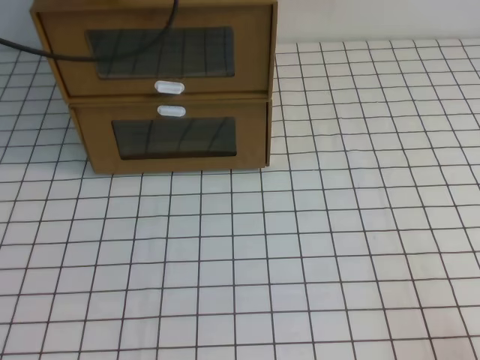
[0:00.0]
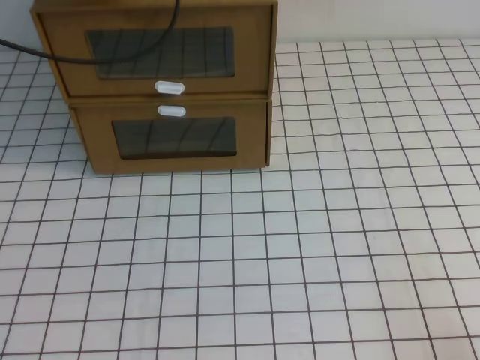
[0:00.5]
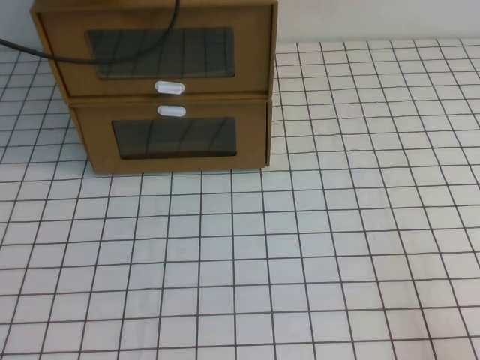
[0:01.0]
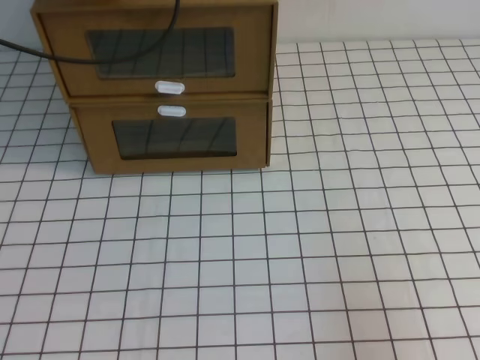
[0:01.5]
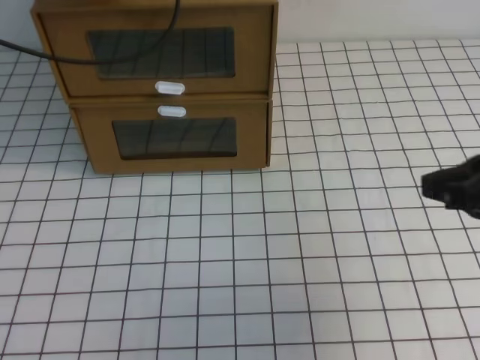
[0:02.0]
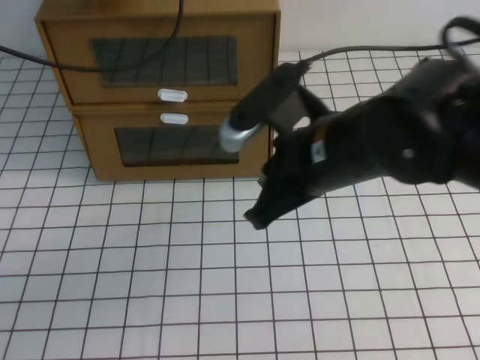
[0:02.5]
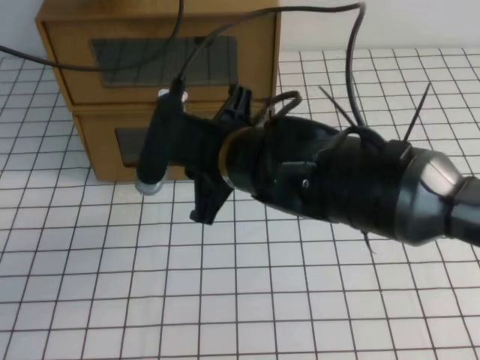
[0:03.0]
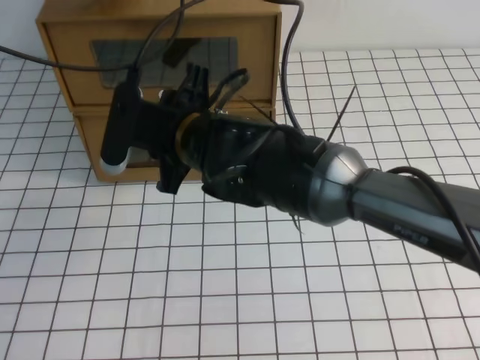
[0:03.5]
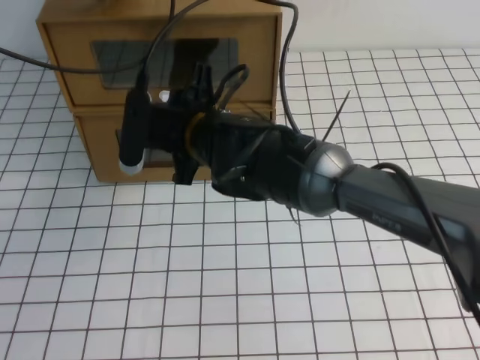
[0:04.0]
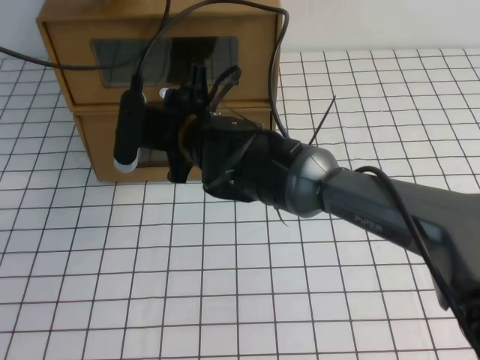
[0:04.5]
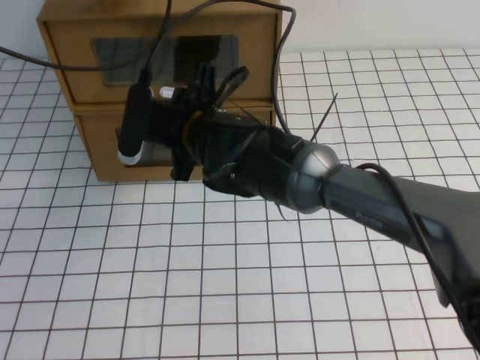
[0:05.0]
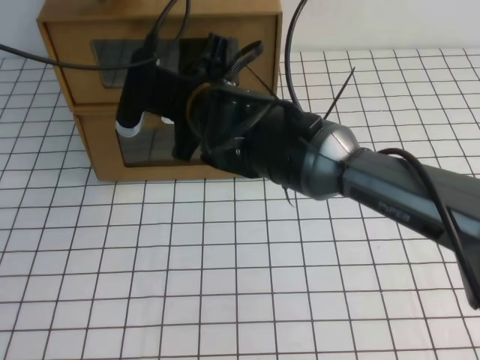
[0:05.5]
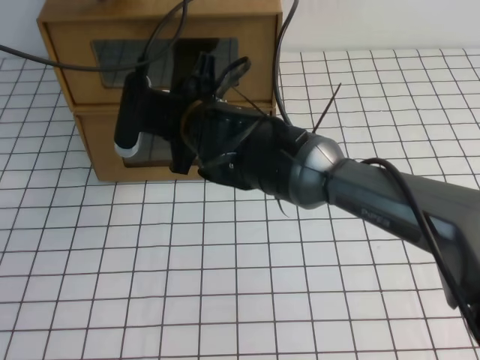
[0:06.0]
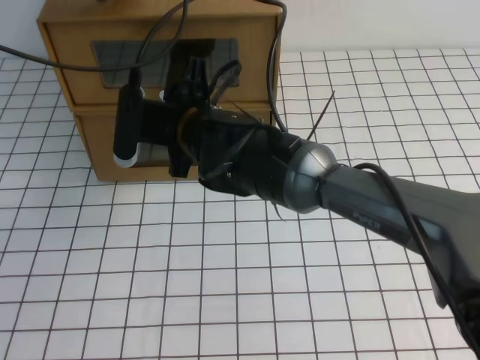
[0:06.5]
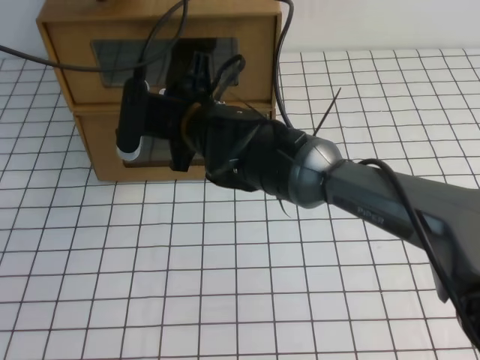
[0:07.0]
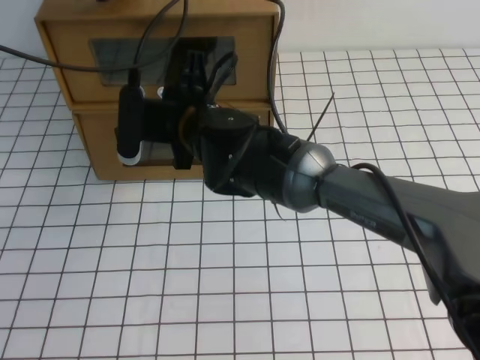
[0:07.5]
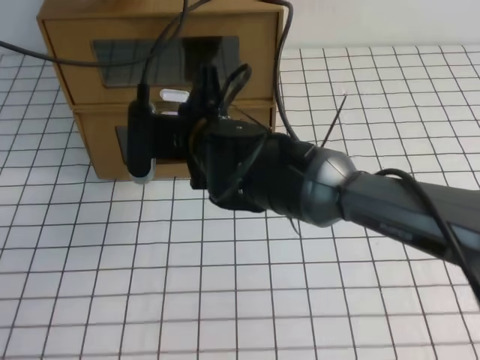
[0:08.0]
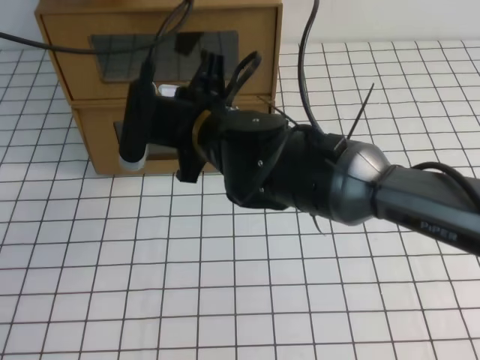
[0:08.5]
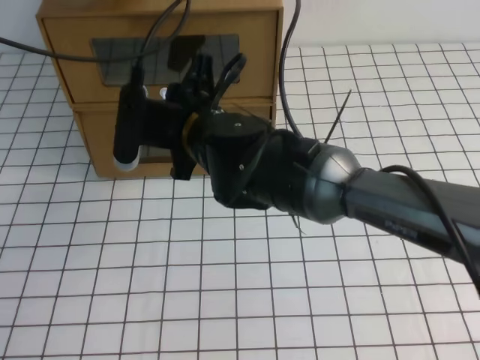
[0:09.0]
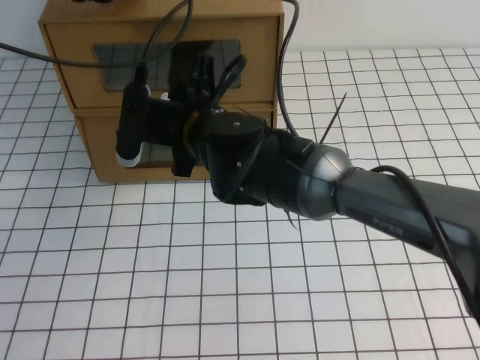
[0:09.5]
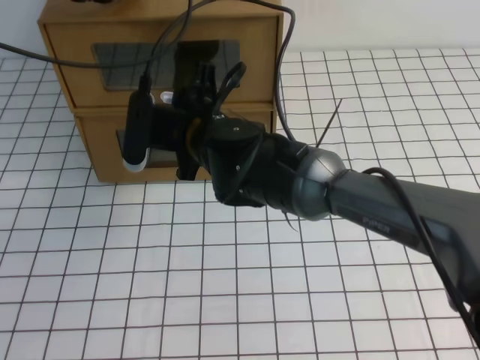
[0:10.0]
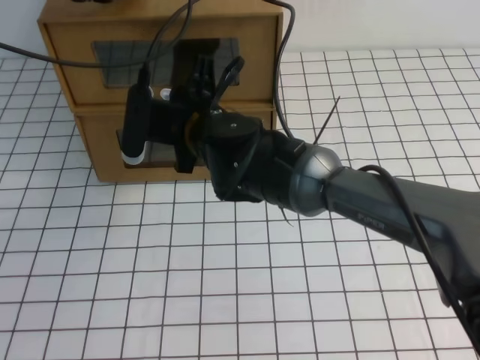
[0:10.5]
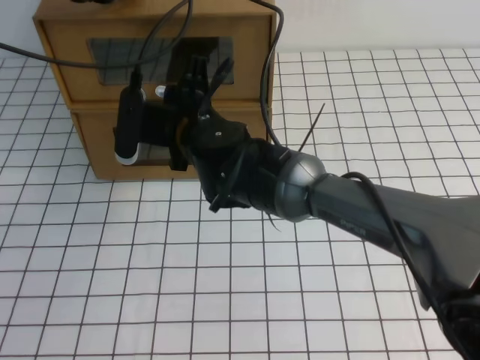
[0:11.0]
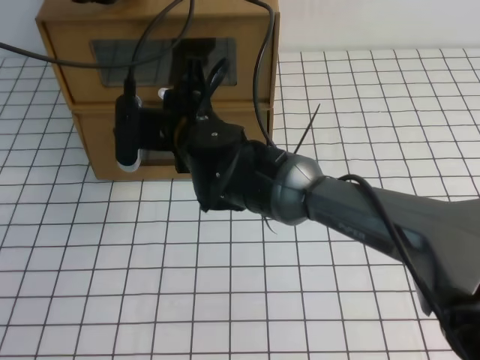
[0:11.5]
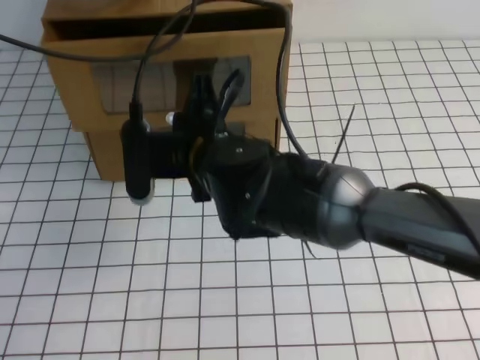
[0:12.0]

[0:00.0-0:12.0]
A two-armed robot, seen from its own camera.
Task of the whole recording: open the shoebox on the white tablecloth.
0.0 to 2.0 s: The right gripper goes roughly 20 cm forward, upward and to the left.
2.0 to 4.0 s: The right gripper goes approximately 35 cm to the left and forward, and opens up.
4.0 to 6.0 s: The grippers stay close to where they were, moving slightly.
6.0 to 8.0 s: The right gripper closes.
8.0 to 10.0 s: The right gripper opens.
10.0 to 12.0 s: The right gripper shifts by some 5 cm, and closes up.

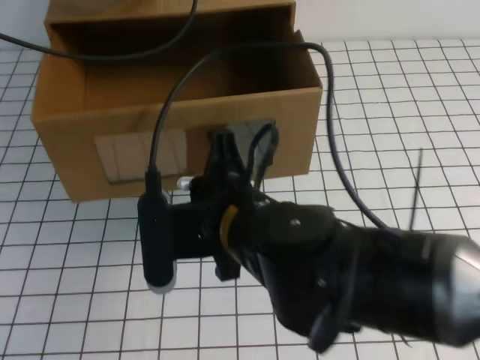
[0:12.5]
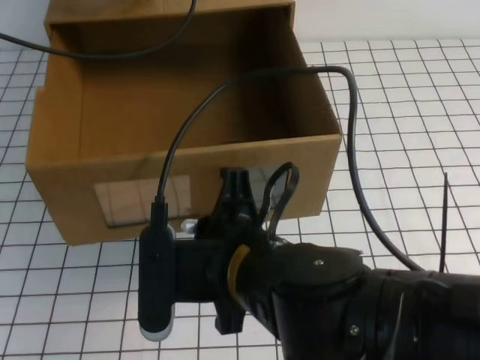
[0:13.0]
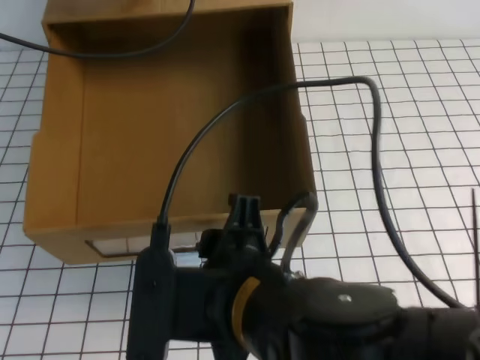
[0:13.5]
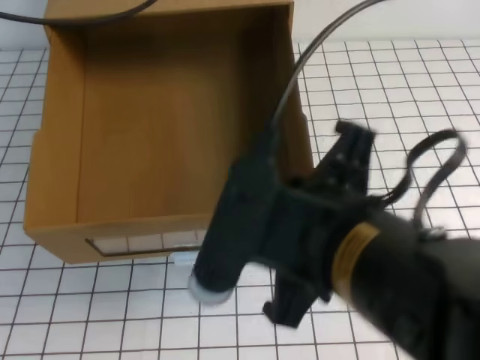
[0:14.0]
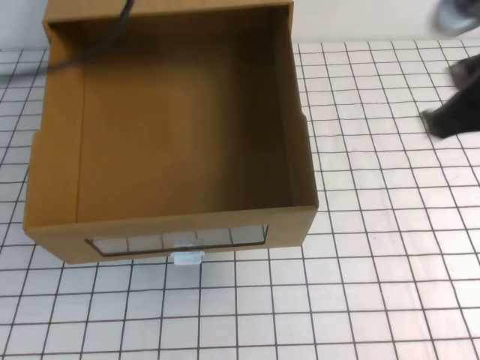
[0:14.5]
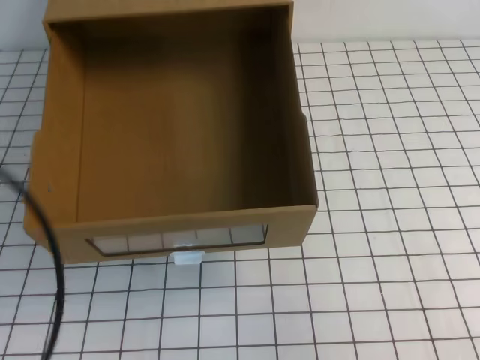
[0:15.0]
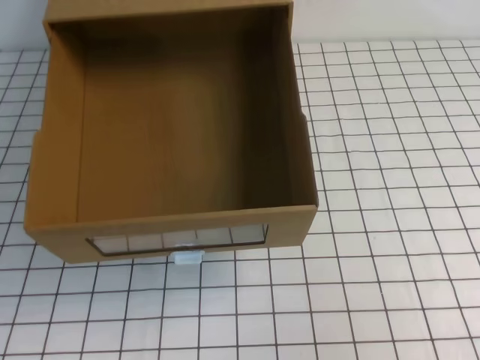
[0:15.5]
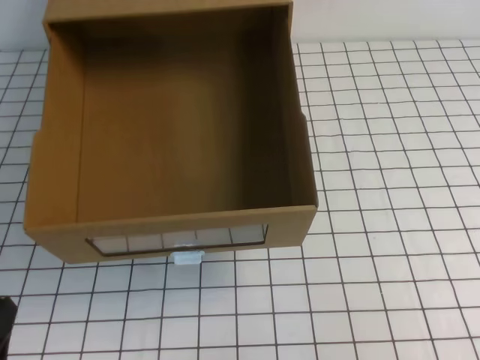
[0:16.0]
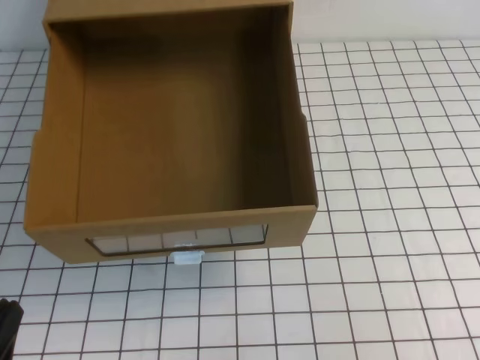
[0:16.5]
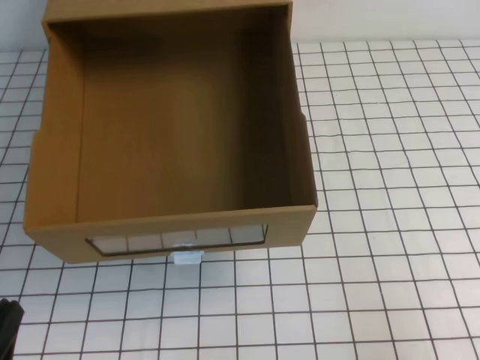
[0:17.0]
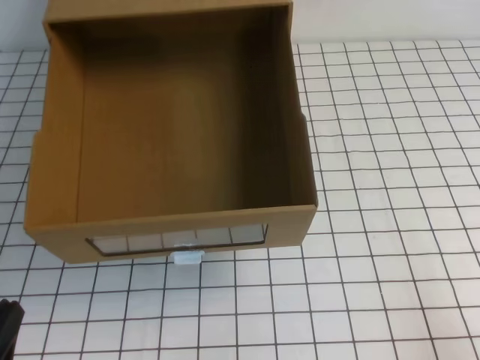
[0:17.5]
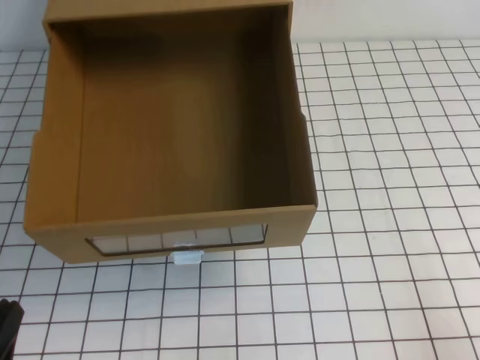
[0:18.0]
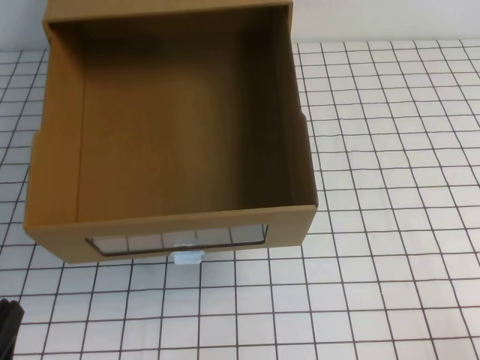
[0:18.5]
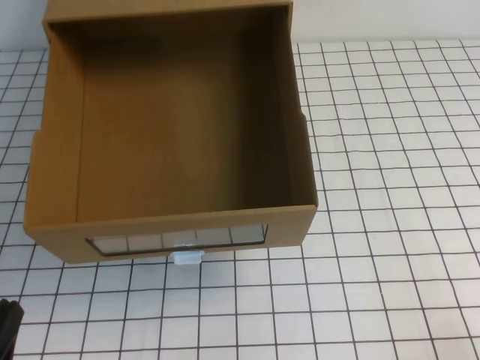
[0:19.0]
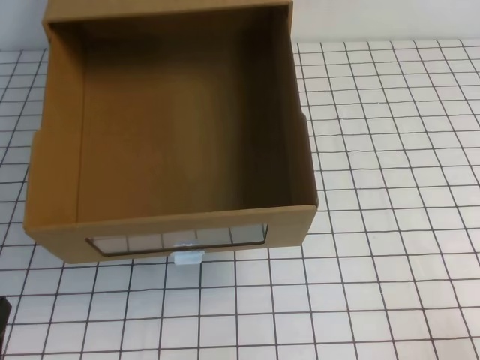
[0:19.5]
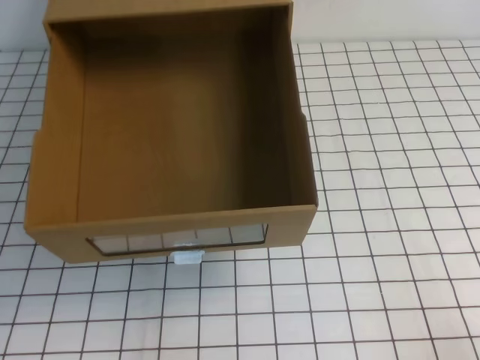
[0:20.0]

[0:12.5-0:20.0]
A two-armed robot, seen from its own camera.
Task of the whole recording: open the shoebox on the white tablecloth.
Step, 12.5 to 20.0 s: Open the shoe box.
12.5 to 14.5 s: The left gripper is displaced backward and upward by about 20 cm. Meanwhile the right gripper is displaced to the right and upward by some 25 cm, and opens, then closes once more.
14.5 to 16.5 s: The right gripper shifts about 15 cm backward, to the right and downward. Meanwhile the left gripper heads downward and backward, covering roughly 40 cm.

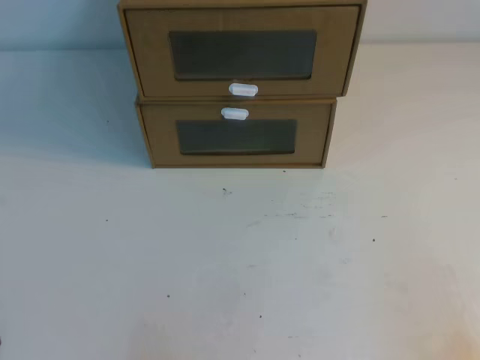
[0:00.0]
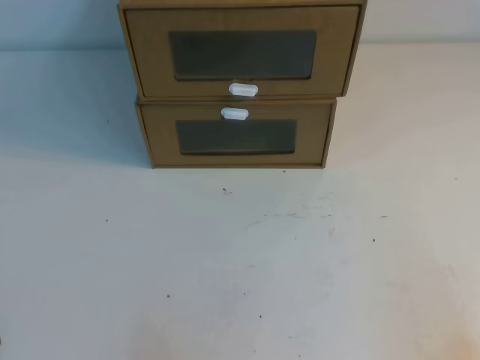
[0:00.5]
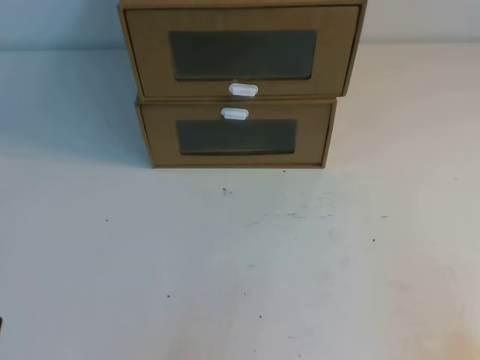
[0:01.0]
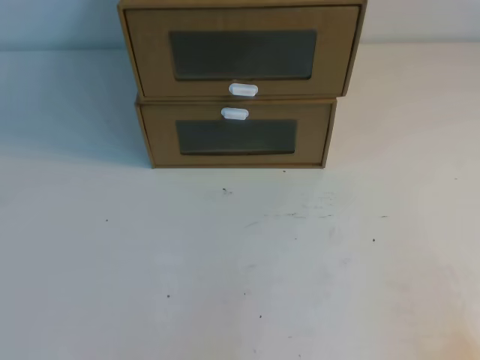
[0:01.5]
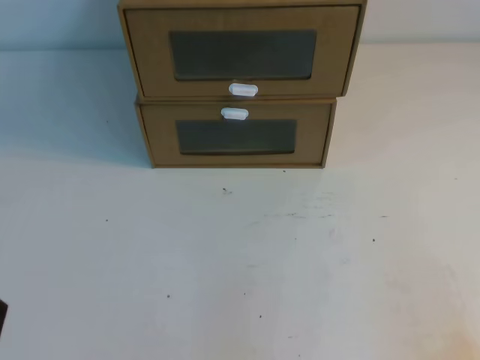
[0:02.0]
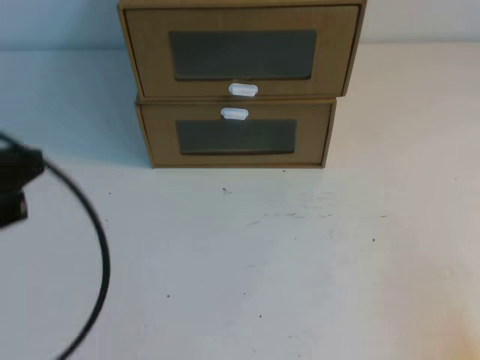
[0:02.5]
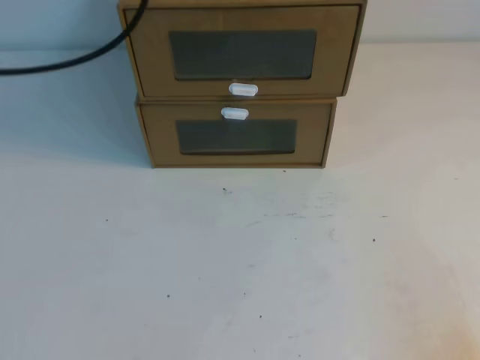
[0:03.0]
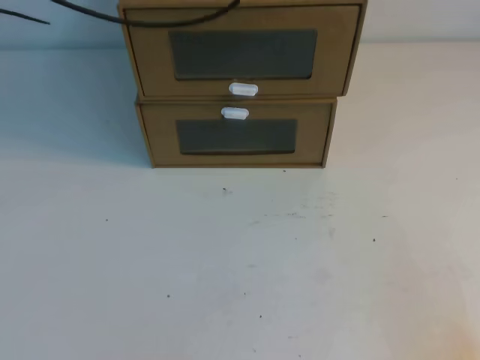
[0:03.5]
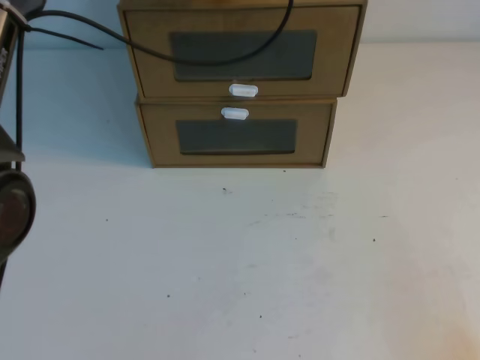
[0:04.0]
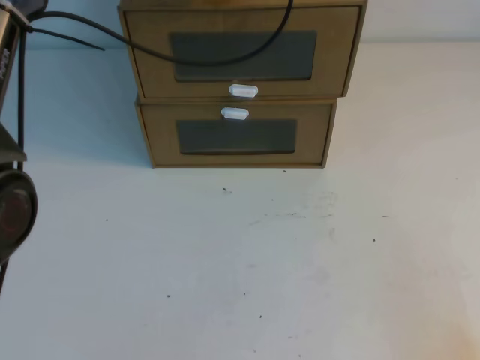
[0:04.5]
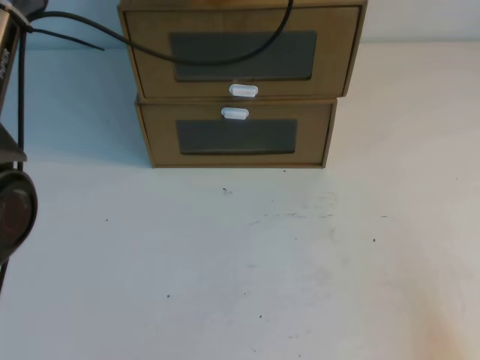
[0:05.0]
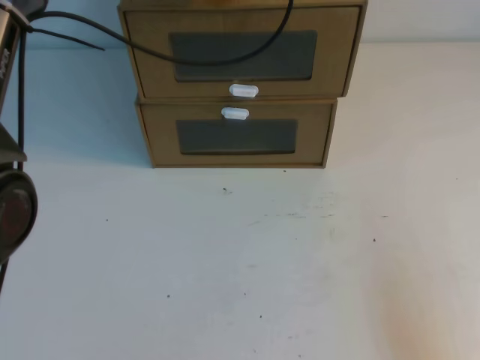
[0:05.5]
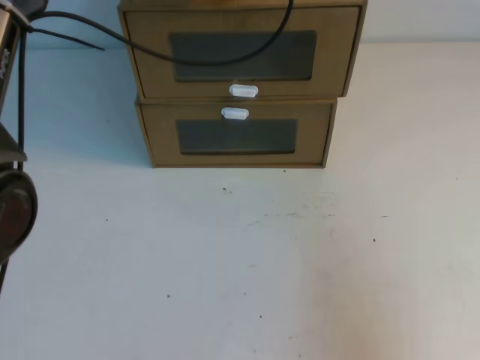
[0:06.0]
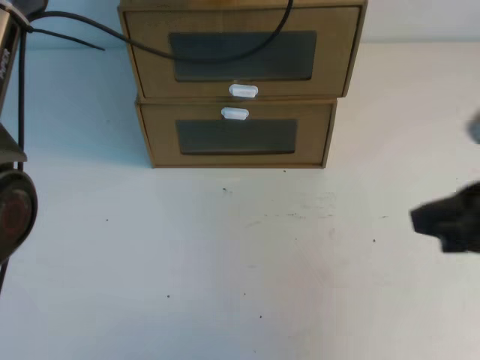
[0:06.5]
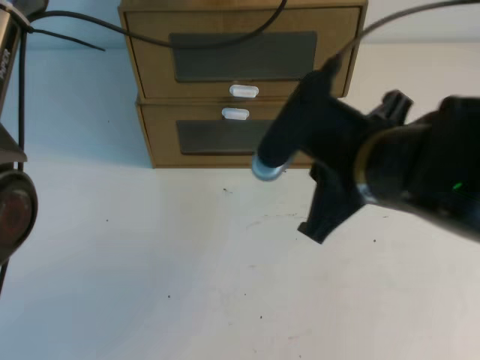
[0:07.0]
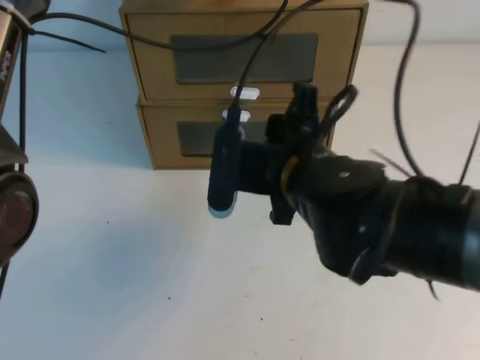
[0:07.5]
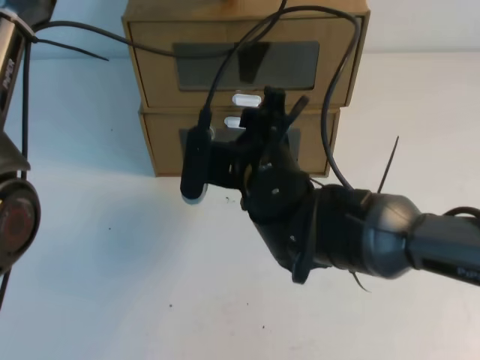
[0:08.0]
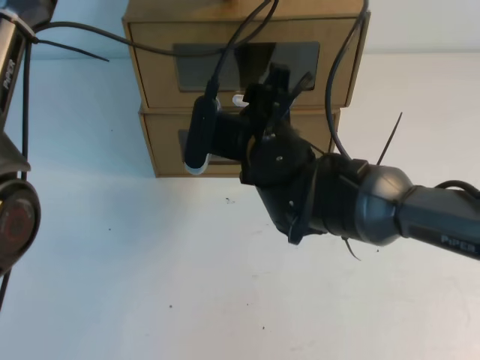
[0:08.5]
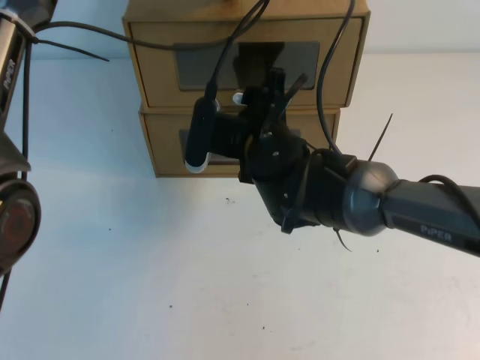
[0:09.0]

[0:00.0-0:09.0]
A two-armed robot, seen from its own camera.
Task of the whole recording: open the shoebox on the table.
2.0 to 4.5 s: The left gripper heads forward, upward and to the right, covering roughly 50 cm.
4.5 to 7.0 s: The right gripper travels to the left, forward and upward by roughly 30 cm.
7.0 to 9.0 s: The right gripper shifts some 20 cm forward, to the left and downward, and opens its fingers.
